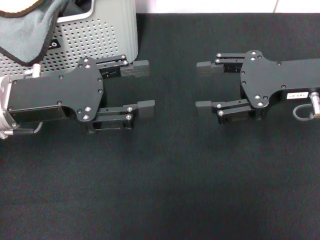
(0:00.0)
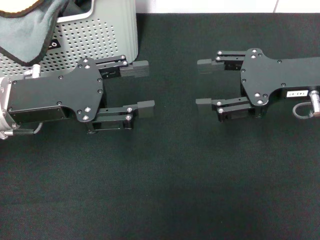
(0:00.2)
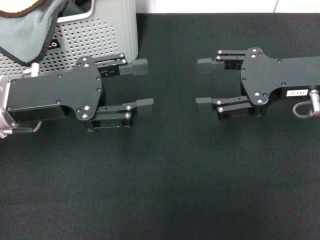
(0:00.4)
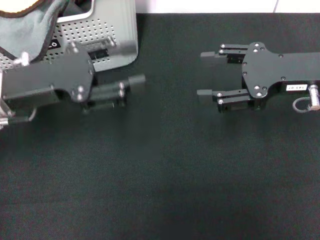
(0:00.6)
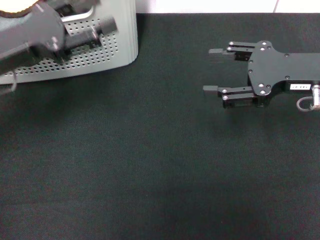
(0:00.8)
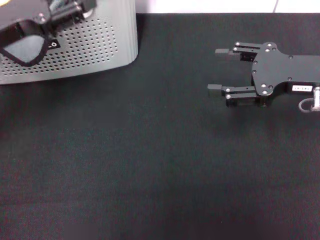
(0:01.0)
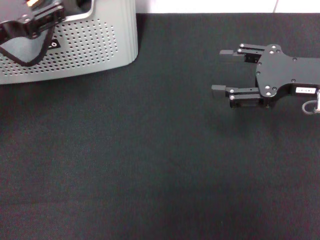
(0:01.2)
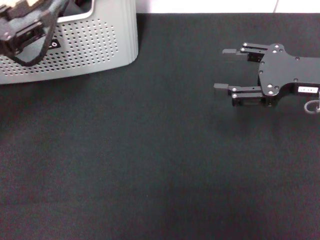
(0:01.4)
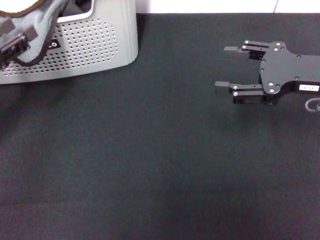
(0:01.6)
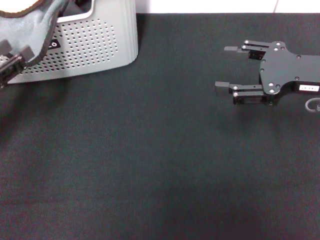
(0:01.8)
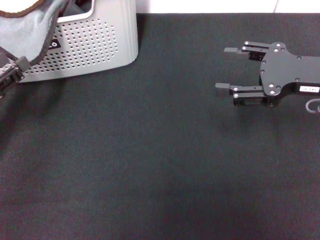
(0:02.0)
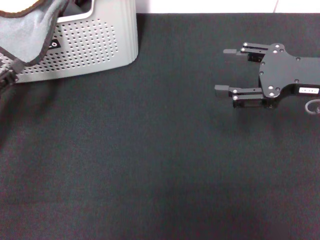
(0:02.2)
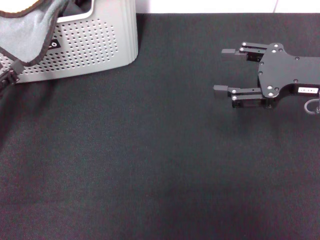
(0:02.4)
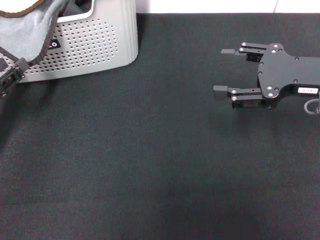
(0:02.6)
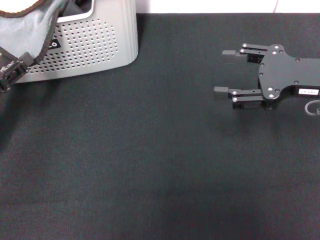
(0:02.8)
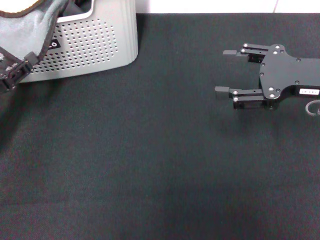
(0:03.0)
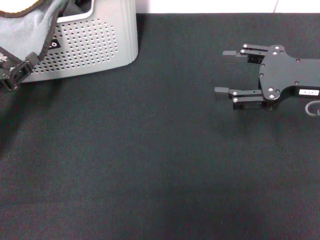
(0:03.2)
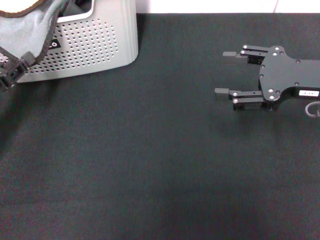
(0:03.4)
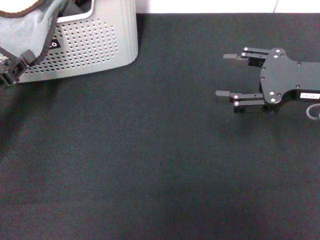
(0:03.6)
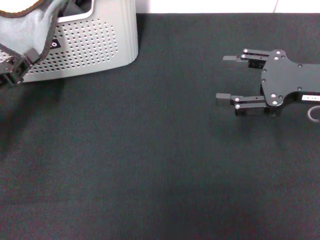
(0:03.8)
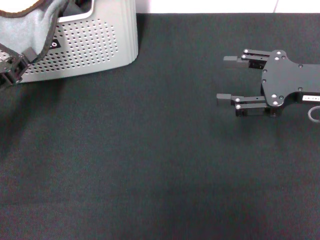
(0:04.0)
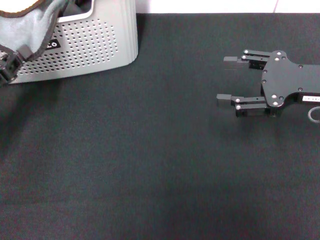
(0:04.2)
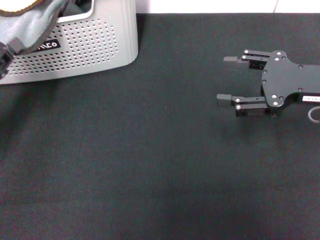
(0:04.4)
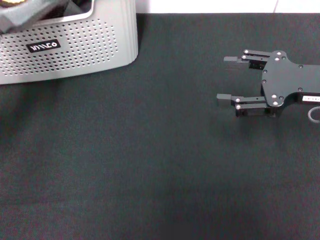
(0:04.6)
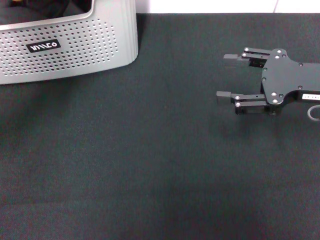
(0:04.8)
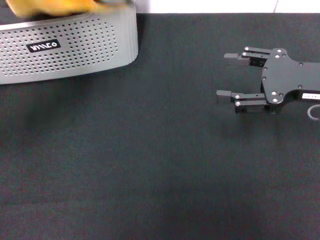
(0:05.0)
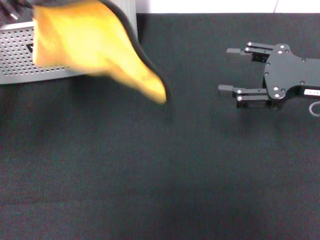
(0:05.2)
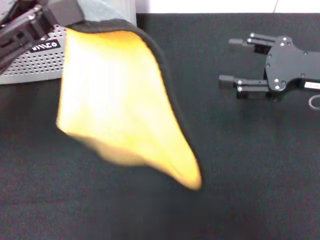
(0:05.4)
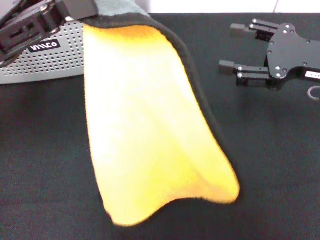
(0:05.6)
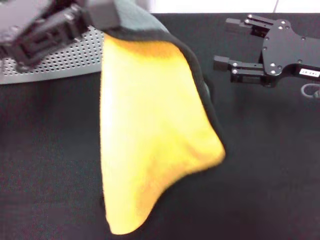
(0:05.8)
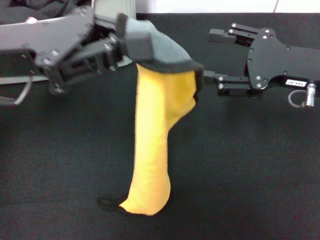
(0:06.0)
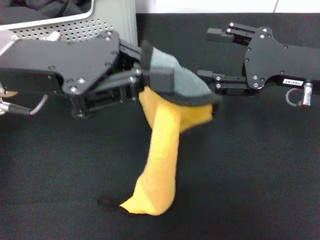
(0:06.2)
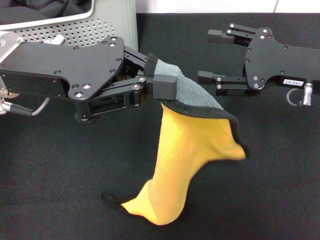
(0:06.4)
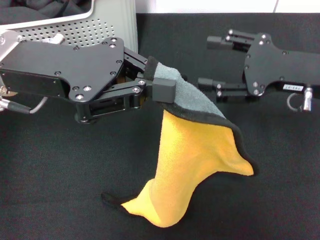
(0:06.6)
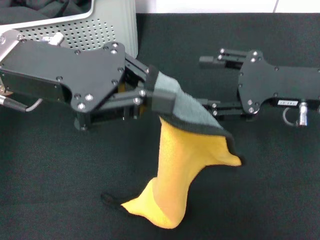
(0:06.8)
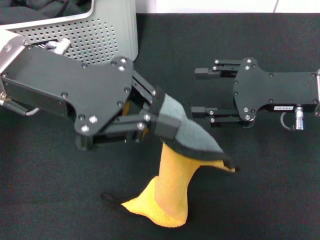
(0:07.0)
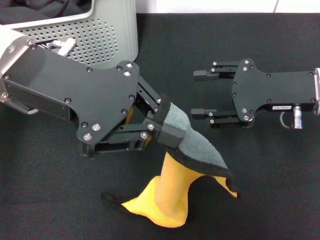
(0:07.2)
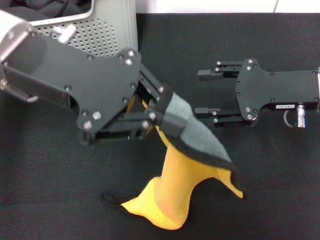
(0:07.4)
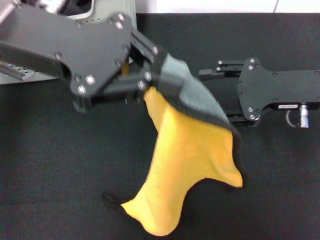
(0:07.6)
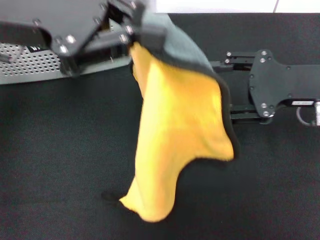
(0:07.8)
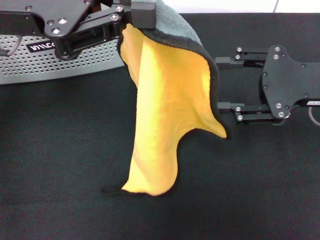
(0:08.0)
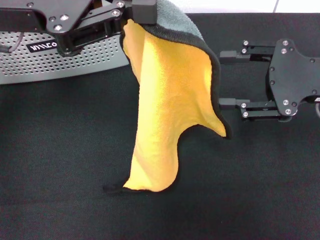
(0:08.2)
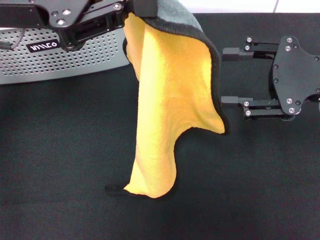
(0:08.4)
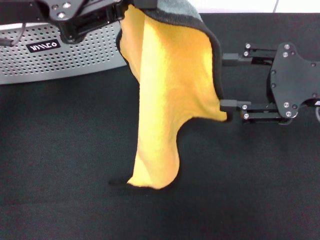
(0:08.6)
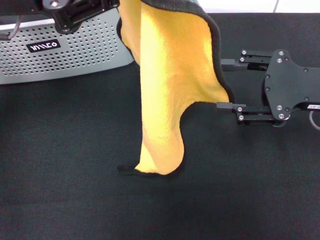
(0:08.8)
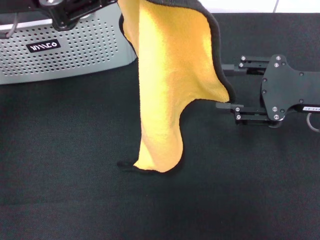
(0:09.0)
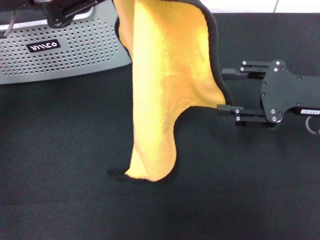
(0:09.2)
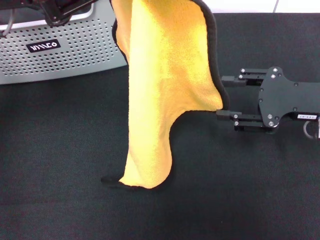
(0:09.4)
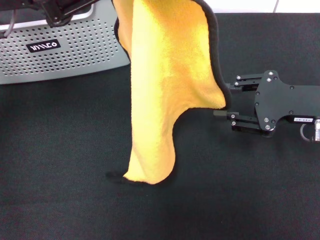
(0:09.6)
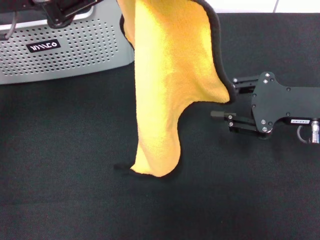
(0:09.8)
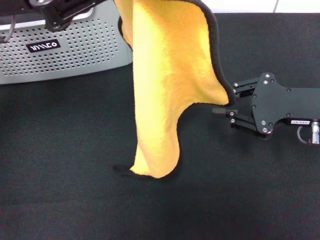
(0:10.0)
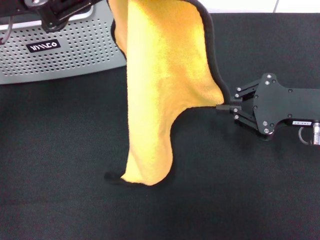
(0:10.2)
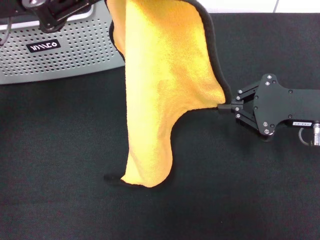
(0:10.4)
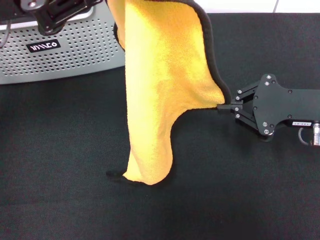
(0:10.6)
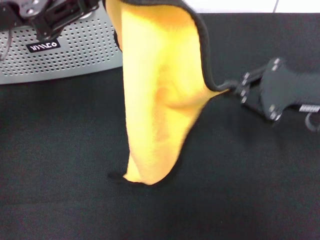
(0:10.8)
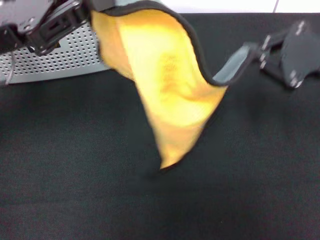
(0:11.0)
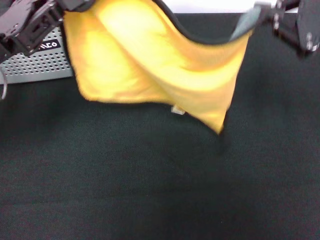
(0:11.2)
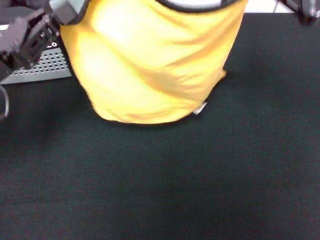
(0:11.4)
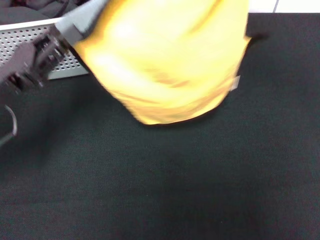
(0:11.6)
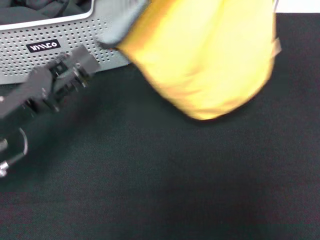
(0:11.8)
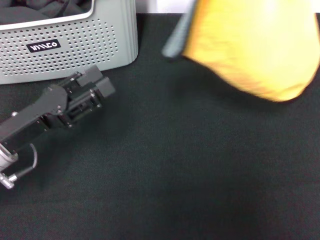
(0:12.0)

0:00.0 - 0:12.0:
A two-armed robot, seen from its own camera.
Task of the whole recording: pick up the towel from the storage box and lay it flat on the black tablecloth.
Step, 0:00.0 - 0:03.8: Pick up a towel with the left gripper.
Step, 0:04.0 - 0:10.4: Spread the towel flat with the left gripper.
0:00.0 - 0:01.6: The left gripper travels to the left by approximately 10 cm.
0:01.6 - 0:03.0: The left gripper travels downward by some 5 cm.
0:03.0 - 0:04.4: The left gripper closes up.
0:04.4 - 0:06.0: The left gripper moves upward and to the right, some 20 cm.
0:06.0 - 0:07.6: The left gripper changes place by some 5 cm.
0:09.0 - 0:10.4: The right gripper closes.
0:10.4 - 0:12.0: The right gripper shifts some 25 cm upward; the left gripper moves downward, some 20 cm, and opens.

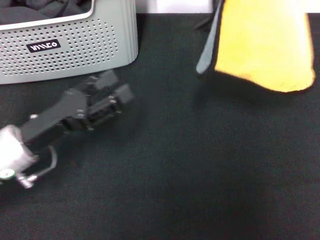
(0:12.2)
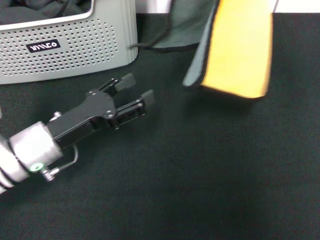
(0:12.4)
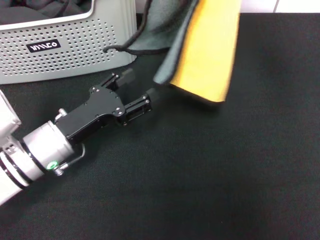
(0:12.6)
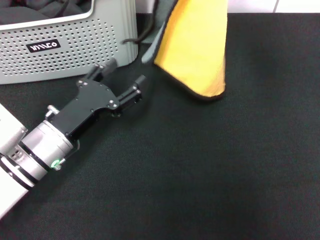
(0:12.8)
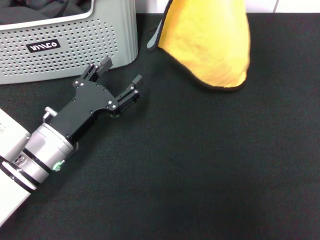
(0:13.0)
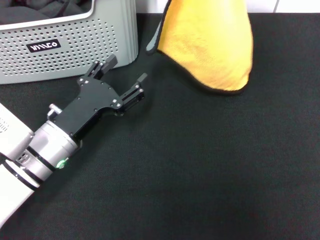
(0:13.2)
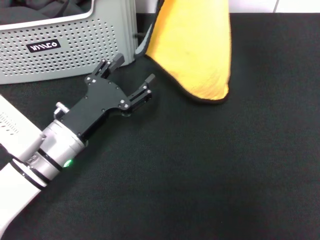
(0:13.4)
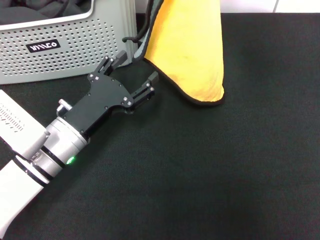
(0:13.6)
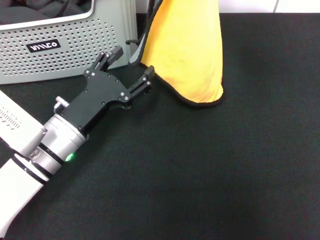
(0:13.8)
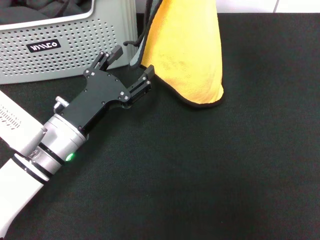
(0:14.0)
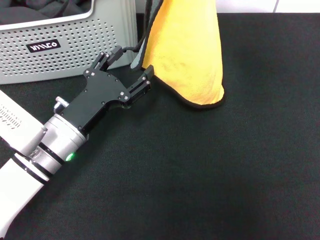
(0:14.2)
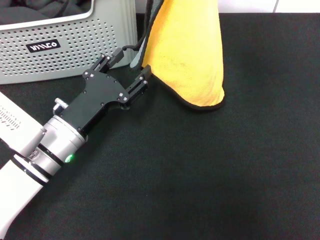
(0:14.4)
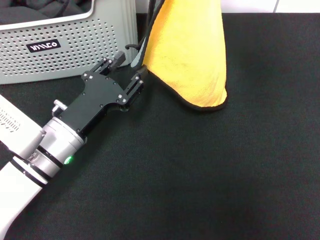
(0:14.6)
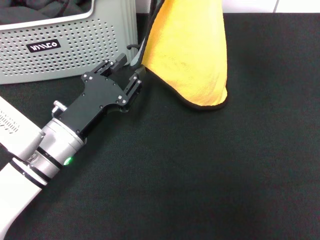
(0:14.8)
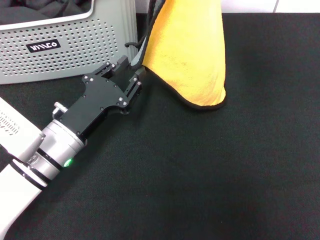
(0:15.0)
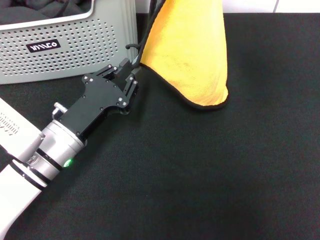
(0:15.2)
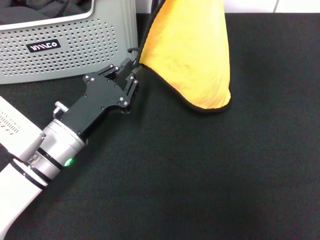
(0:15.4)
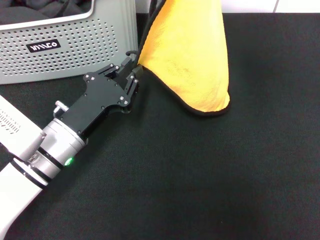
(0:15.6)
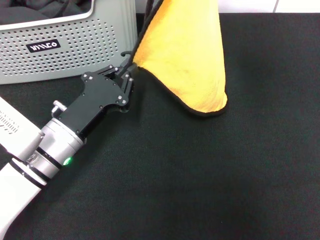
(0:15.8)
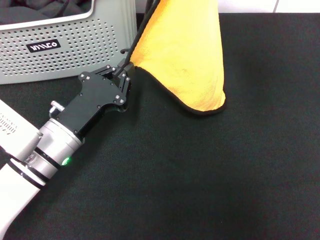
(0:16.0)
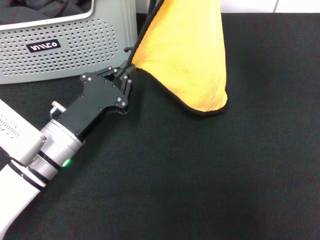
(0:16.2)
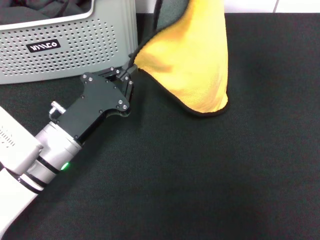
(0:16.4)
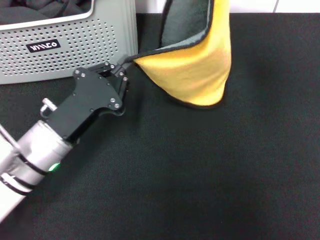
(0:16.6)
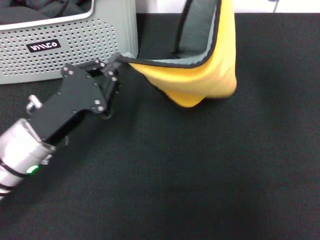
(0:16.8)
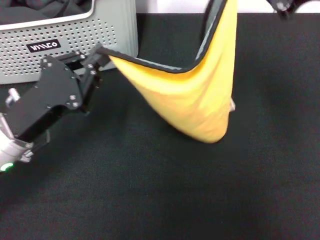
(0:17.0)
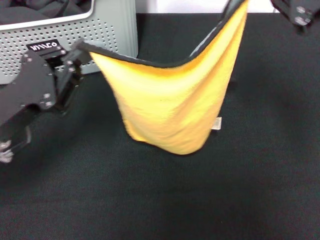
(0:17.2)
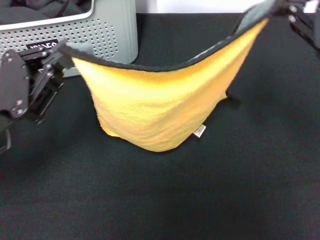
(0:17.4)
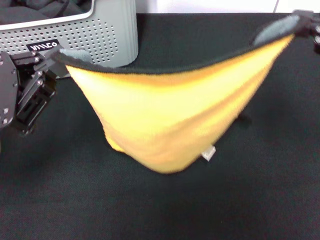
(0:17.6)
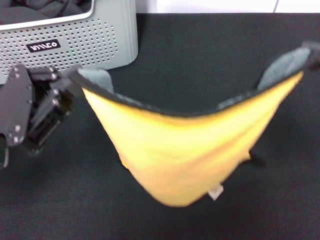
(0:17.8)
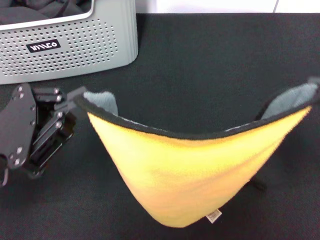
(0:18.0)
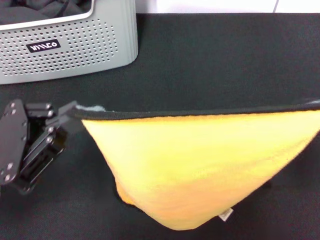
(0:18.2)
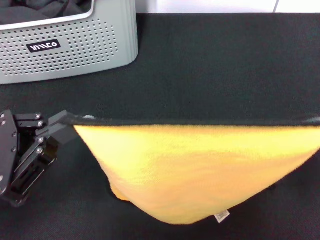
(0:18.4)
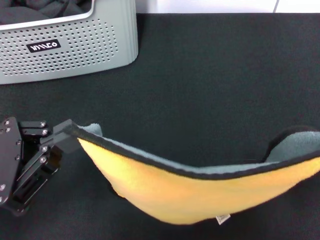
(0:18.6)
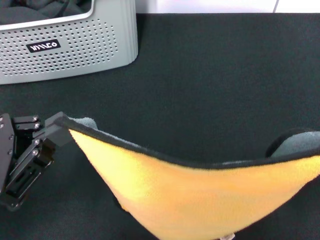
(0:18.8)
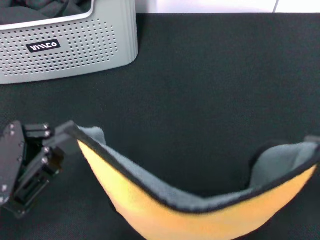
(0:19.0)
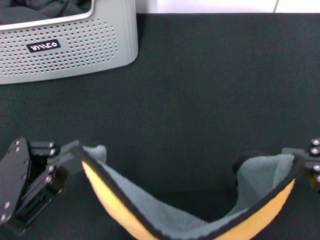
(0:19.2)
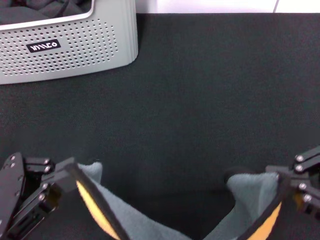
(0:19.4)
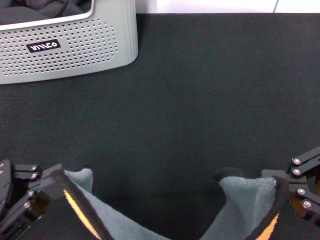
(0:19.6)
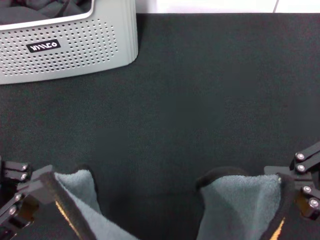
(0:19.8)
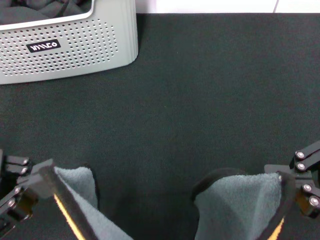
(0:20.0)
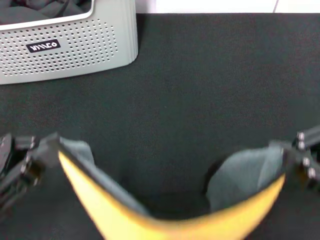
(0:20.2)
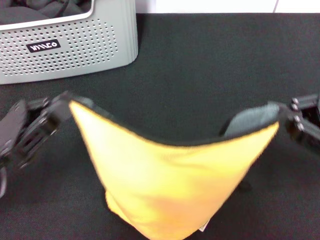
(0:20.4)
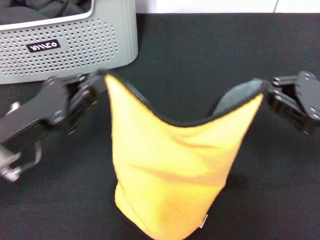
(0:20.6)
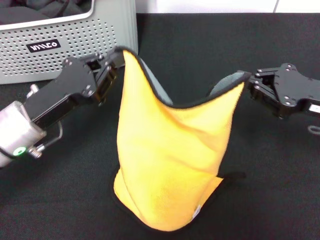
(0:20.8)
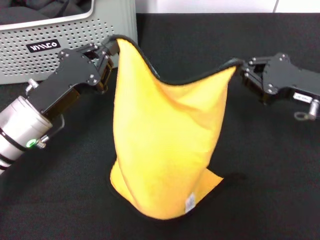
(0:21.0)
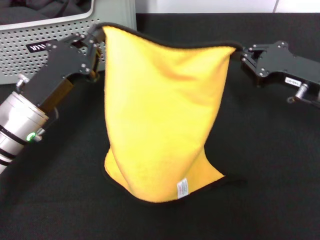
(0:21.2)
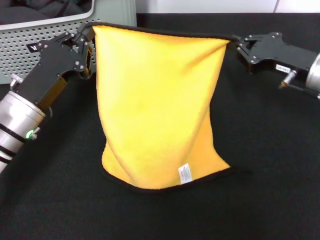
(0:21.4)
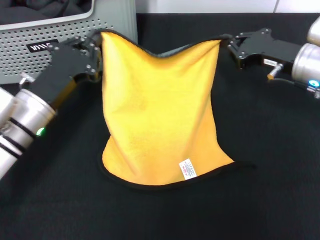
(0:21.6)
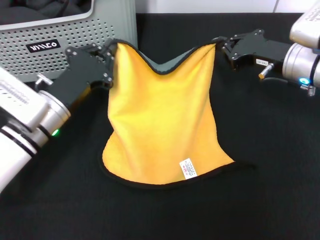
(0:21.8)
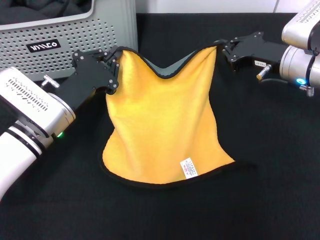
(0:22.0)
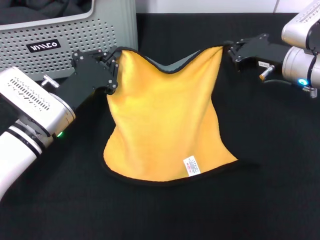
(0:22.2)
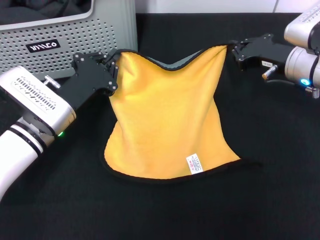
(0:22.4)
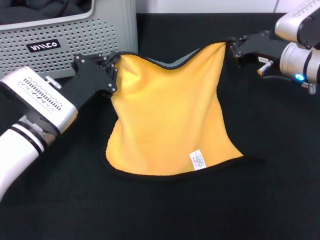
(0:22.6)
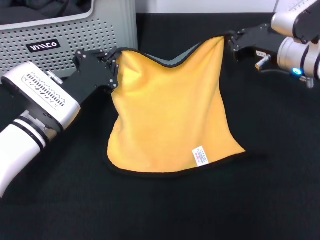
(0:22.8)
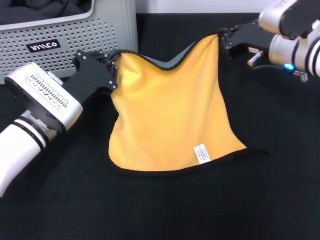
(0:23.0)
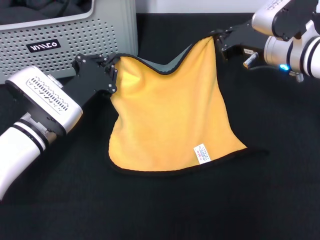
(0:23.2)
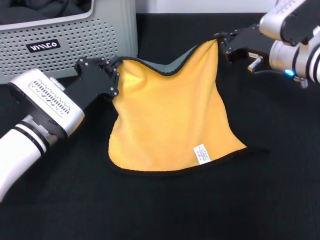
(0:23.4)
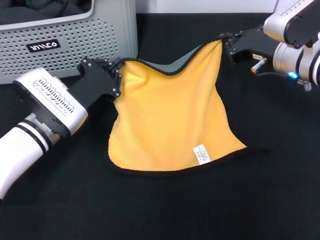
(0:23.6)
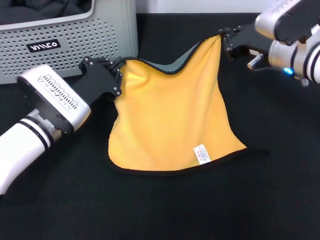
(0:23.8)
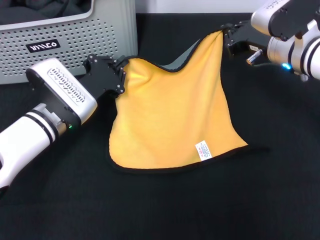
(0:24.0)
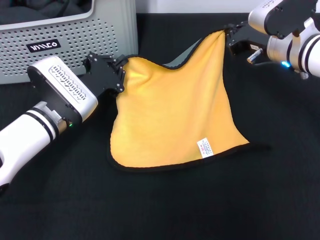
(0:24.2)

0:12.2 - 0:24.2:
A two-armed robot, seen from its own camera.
Task of the whole recording: pick up the towel from the storage box and lay it flat on the black tablecloth.
0:12.2 - 0:13.8: The left gripper is displaced to the right by some 5 cm. Meanwhile the right gripper goes about 5 cm to the left.
0:13.8 - 0:15.2: The left gripper closes.
0:15.2 - 0:16.6: The left gripper closes.
0:16.6 - 0:18.2: The right gripper is displaced backward and to the right by about 20 cm. The left gripper goes roughly 15 cm upward, to the left and backward.
0:18.2 - 0:19.8: The left gripper moves some 5 cm. Meanwhile the right gripper moves to the left, roughly 5 cm.
0:19.8 - 0:21.2: Both grippers travel together forward and downward, approximately 20 cm.
0:21.2 - 0:22.6: The left gripper ends up some 5 cm from where it was, while the right gripper is displaced forward by about 5 cm.
